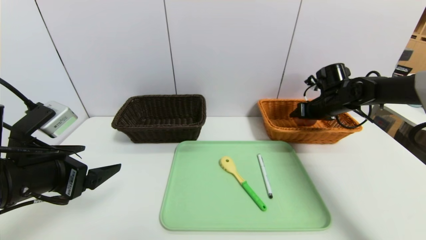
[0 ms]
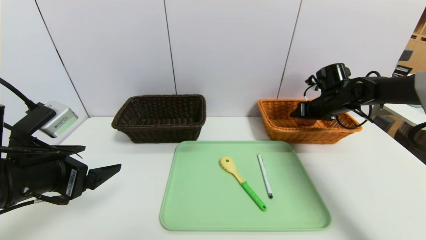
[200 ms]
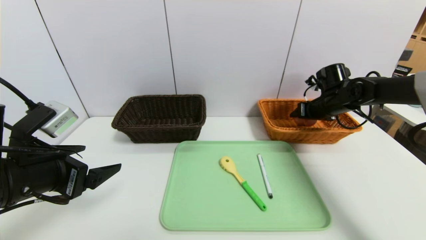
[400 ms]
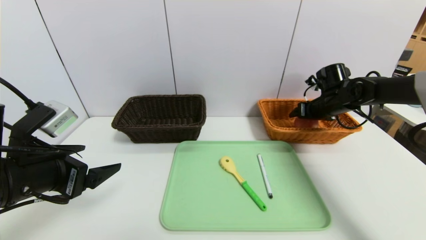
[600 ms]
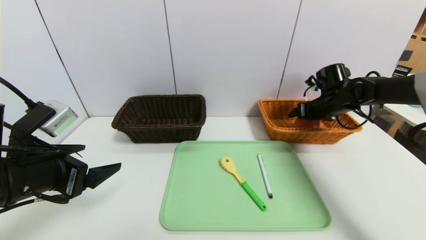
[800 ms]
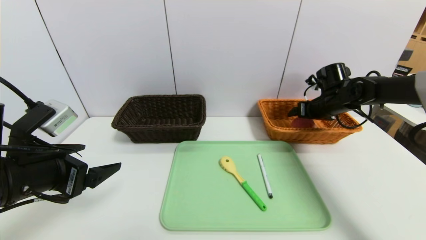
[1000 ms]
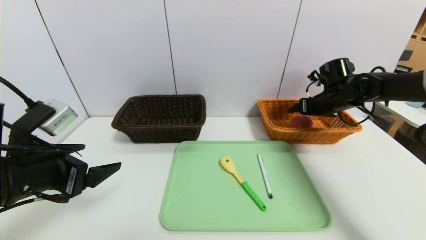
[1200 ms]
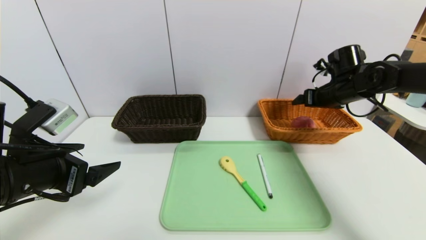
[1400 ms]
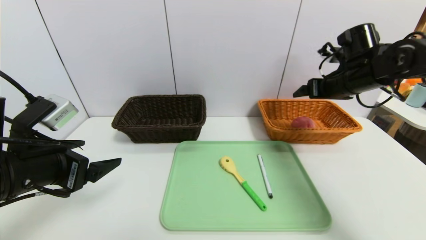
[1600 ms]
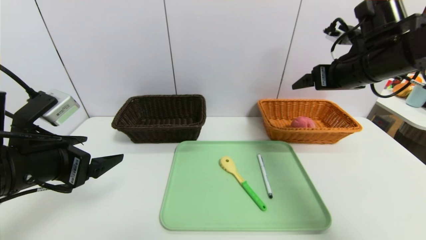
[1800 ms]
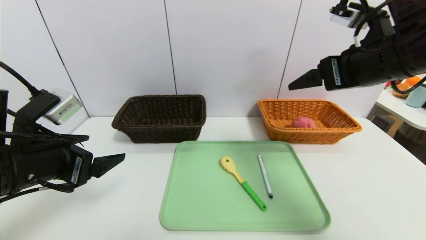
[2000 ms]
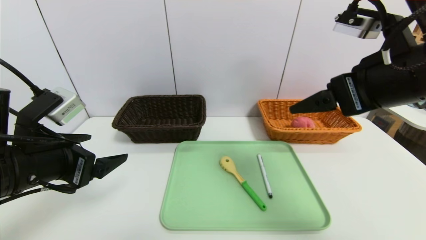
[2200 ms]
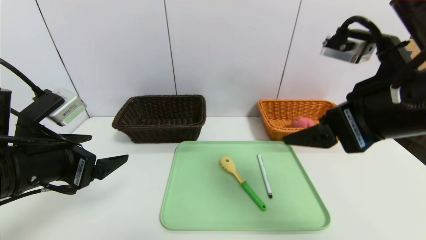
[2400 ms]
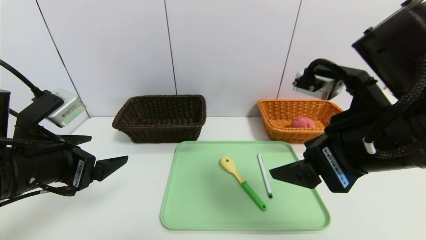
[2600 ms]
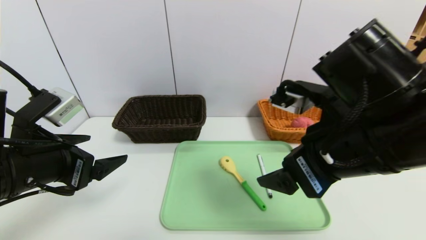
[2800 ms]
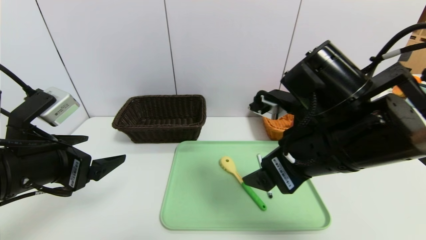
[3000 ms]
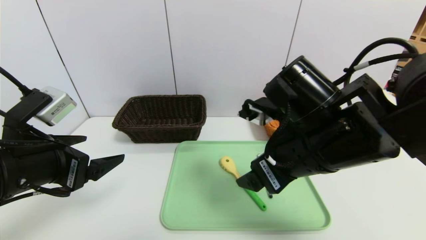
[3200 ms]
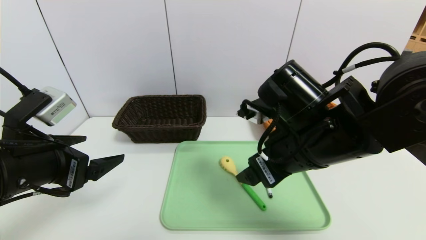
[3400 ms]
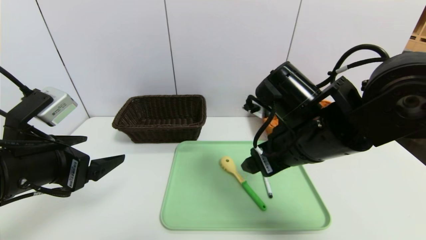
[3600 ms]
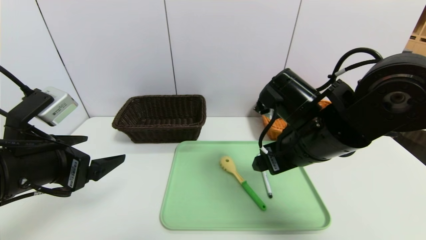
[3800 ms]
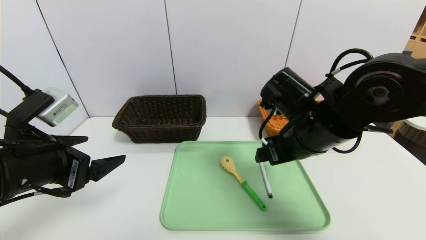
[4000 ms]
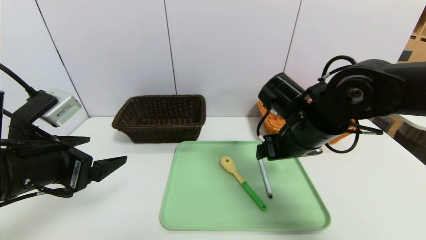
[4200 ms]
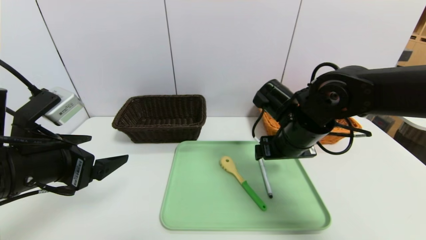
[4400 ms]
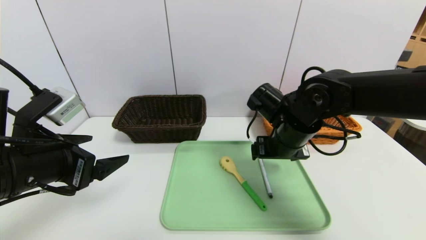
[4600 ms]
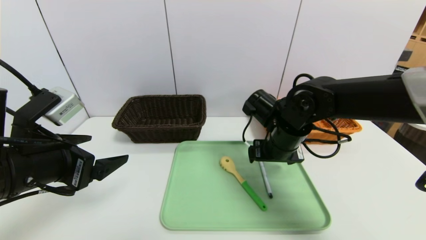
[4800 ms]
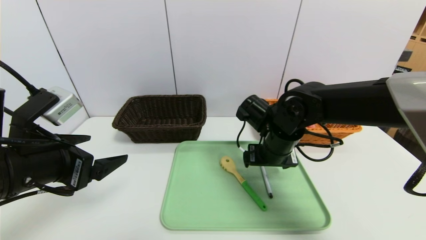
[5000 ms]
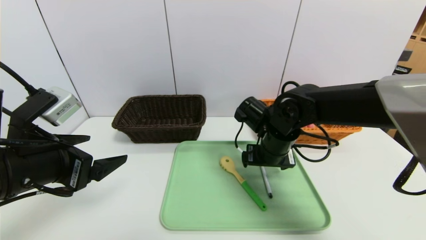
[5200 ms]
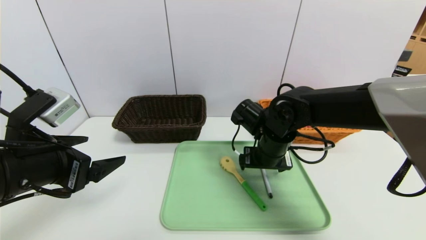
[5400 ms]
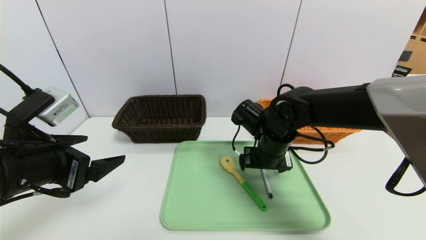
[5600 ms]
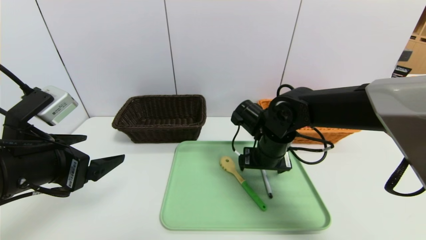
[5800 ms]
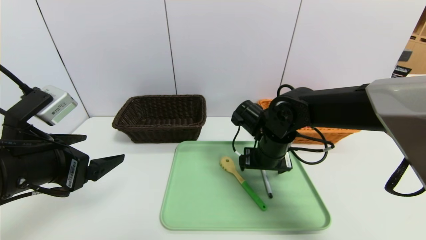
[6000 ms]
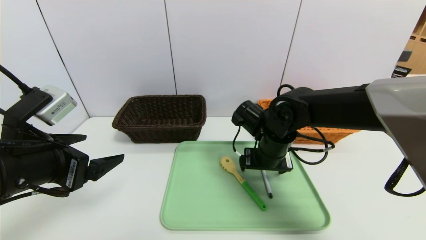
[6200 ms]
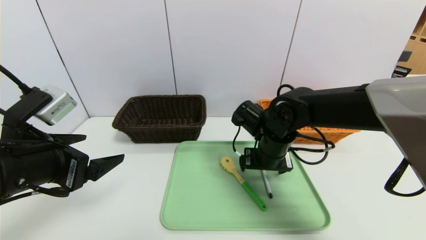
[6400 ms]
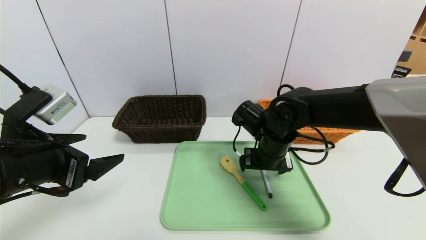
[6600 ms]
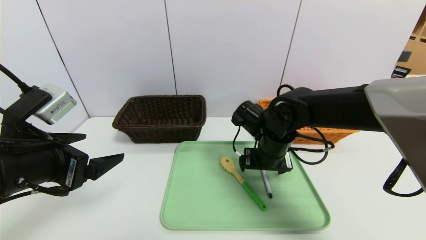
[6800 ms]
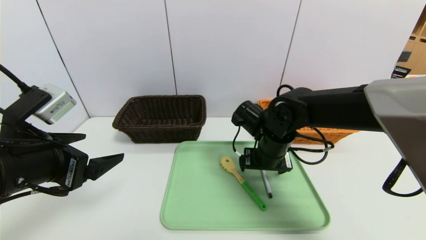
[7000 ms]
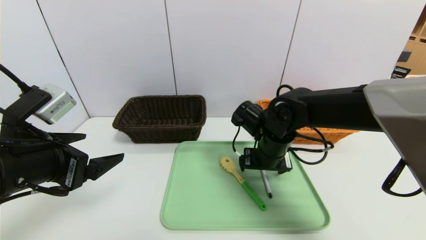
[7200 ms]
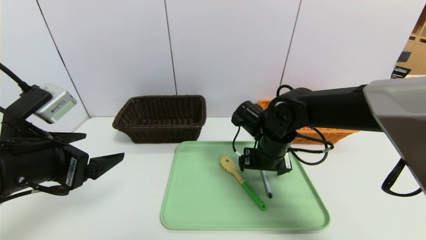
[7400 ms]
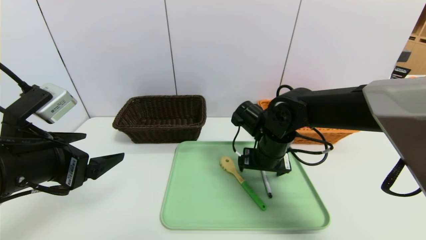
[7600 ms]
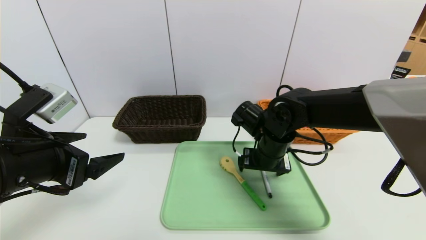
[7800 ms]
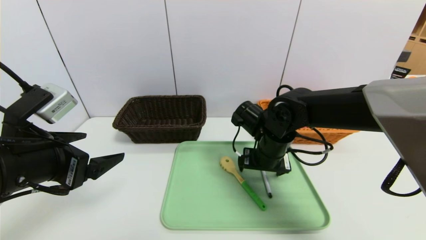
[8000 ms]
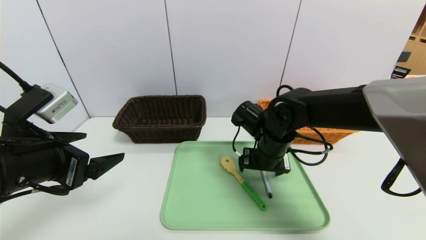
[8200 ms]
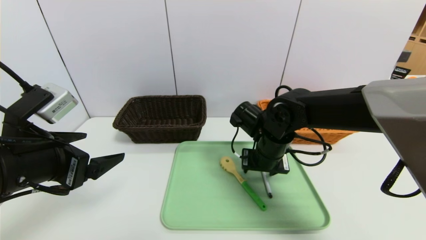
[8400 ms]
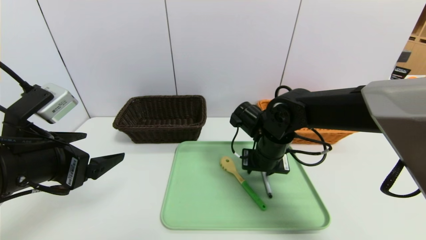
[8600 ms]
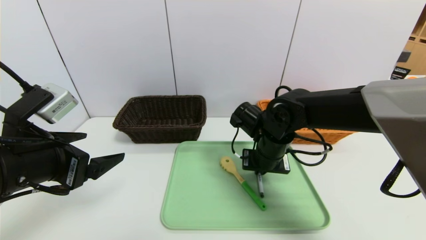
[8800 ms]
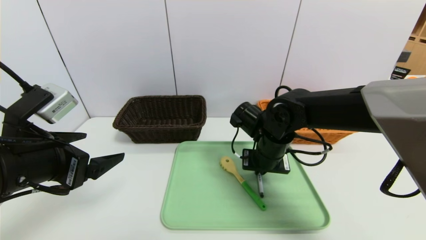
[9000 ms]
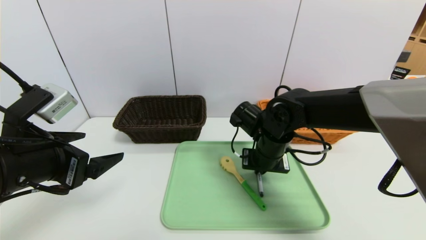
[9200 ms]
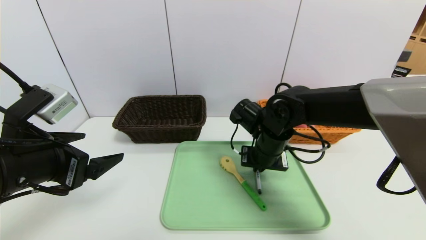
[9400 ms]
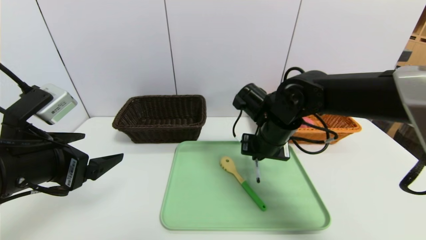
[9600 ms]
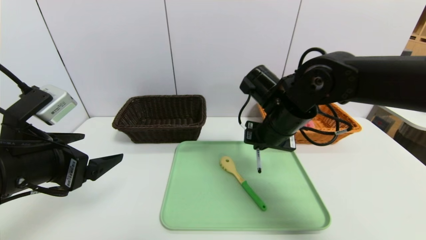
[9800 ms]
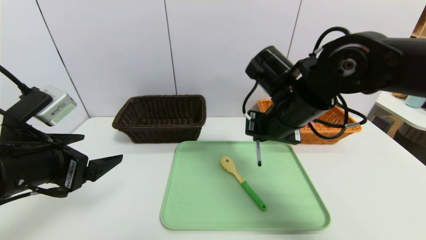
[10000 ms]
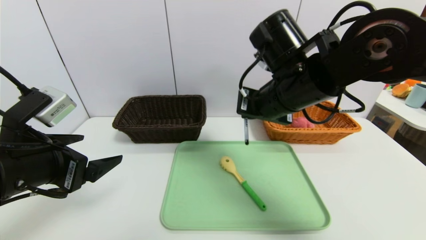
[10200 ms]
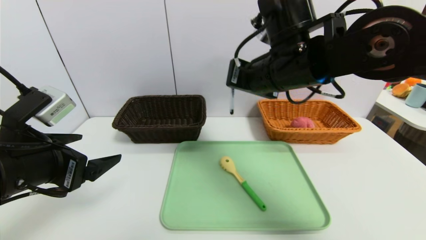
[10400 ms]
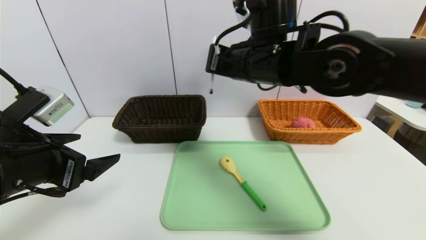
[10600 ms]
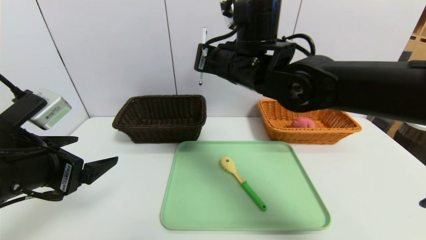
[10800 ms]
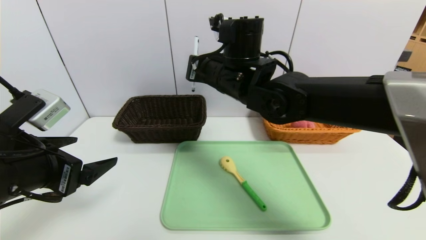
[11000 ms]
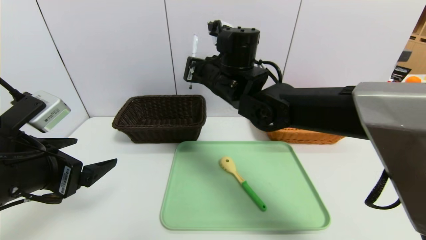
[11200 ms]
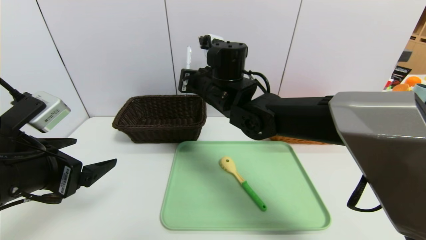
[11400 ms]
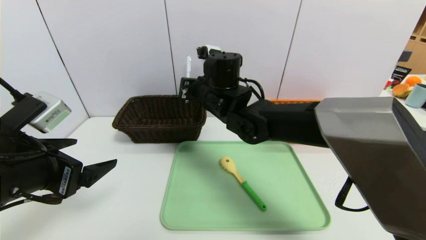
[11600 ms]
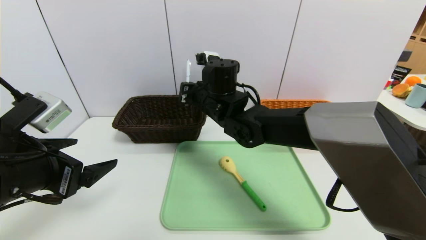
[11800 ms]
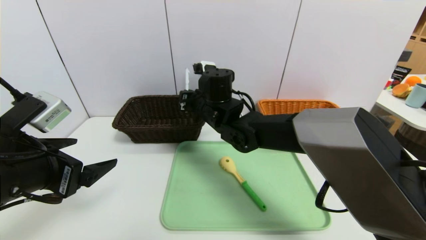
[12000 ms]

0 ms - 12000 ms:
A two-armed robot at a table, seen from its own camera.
Task of the whole recording: place the food in the right basket with the right gripper, and place the non food items in the left basket with the left gripper.
0 ms - 1600 ms: The right gripper travels upward and backward by some 10 cm.
1600 ms - 3000 ms: The right gripper is displaced backward and to the left by roughly 25 cm.
3000 ms - 4400 ms: The right gripper goes some 10 cm forward and downward.
4400 ms - 6000 ms: The right gripper shifts by some 5 cm.
6000 ms - 7600 ms: Both grippers stay put.
7600 ms - 9000 ms: The right gripper closes its fingers.
9000 ms - 10400 ms: The right gripper is displaced upward by some 20 cm.
10400 ms - 12000 ms: The right gripper is displaced downward, to the left and forward by approximately 20 cm.

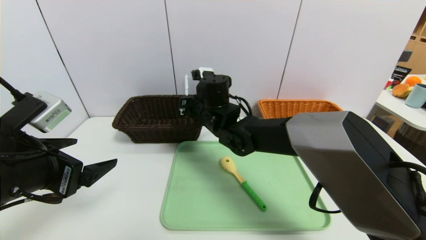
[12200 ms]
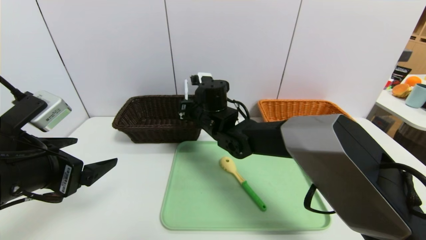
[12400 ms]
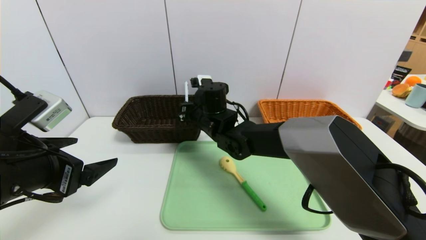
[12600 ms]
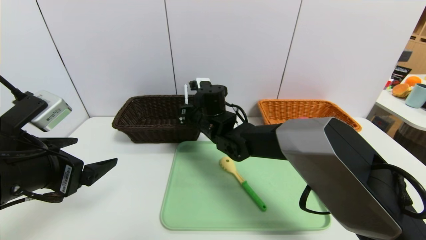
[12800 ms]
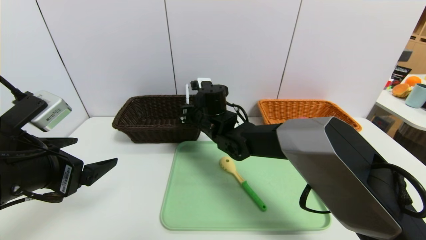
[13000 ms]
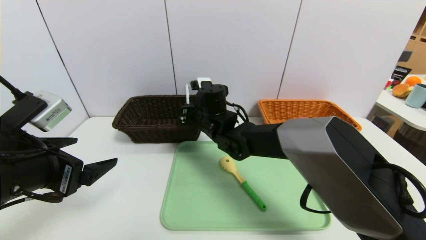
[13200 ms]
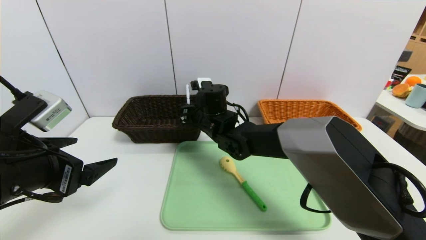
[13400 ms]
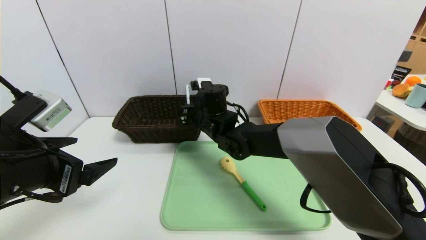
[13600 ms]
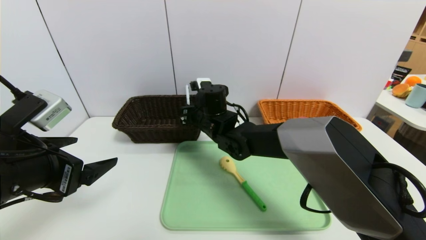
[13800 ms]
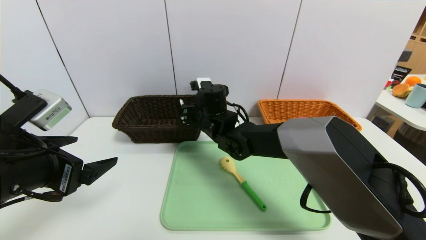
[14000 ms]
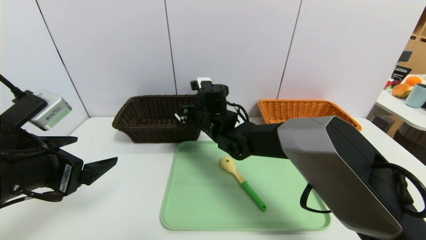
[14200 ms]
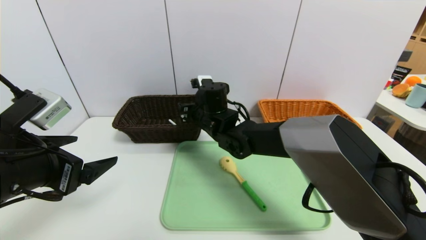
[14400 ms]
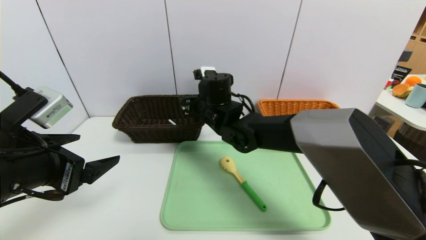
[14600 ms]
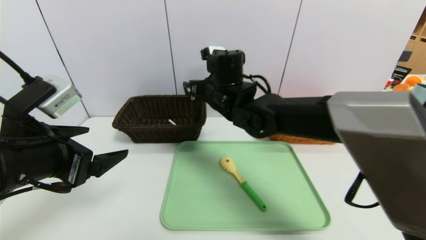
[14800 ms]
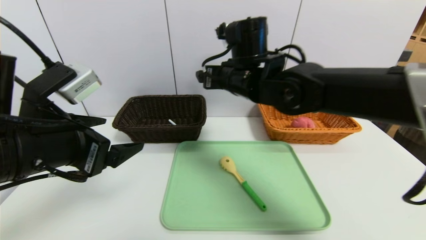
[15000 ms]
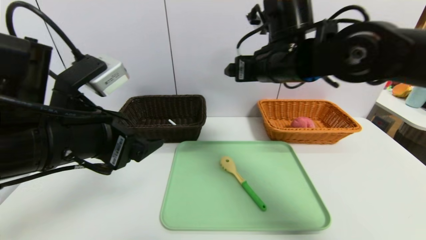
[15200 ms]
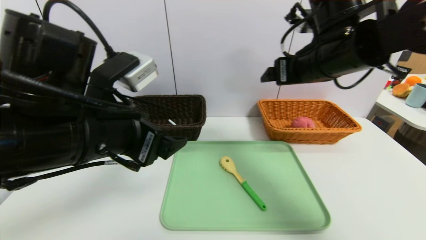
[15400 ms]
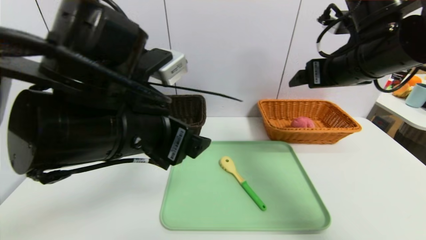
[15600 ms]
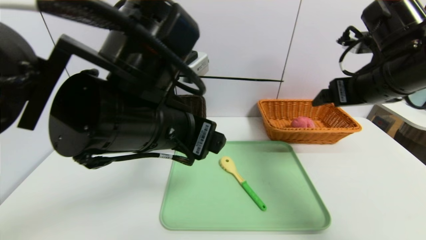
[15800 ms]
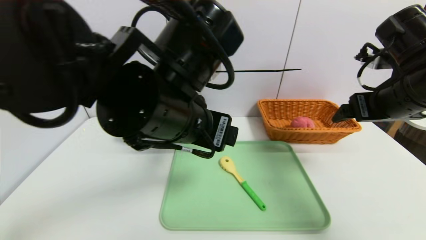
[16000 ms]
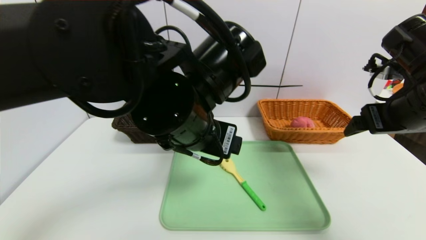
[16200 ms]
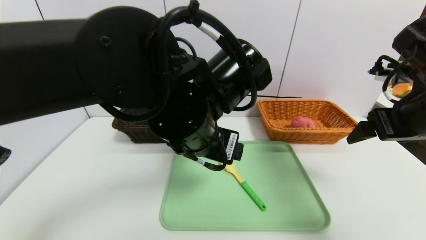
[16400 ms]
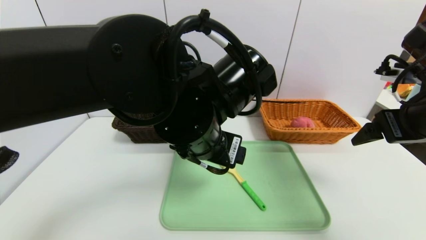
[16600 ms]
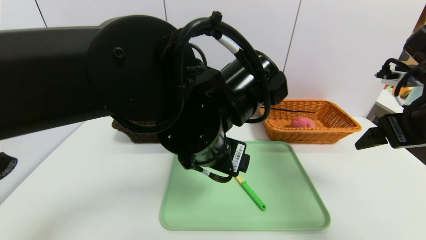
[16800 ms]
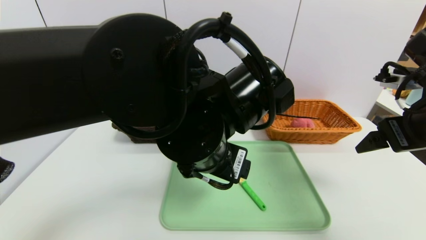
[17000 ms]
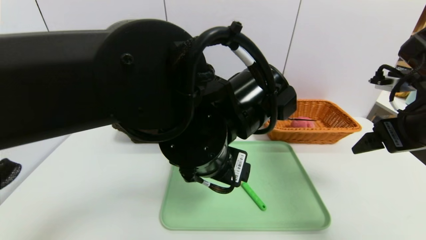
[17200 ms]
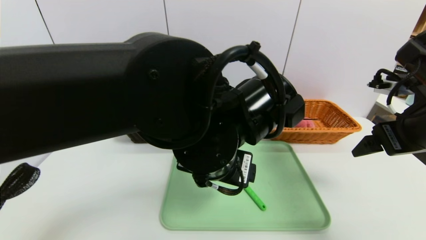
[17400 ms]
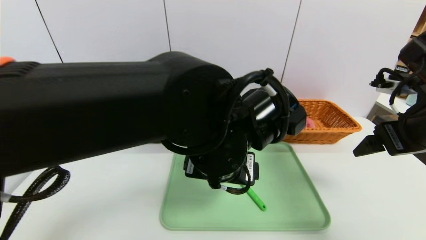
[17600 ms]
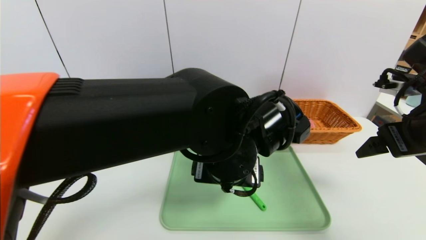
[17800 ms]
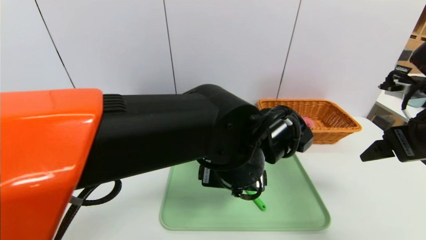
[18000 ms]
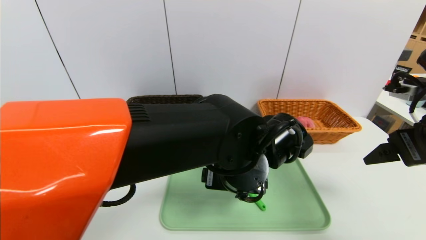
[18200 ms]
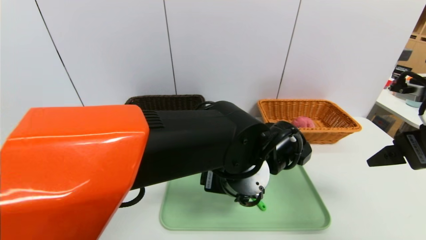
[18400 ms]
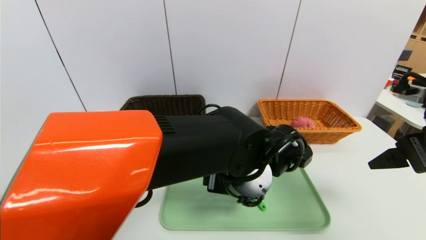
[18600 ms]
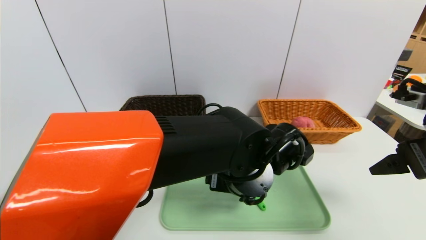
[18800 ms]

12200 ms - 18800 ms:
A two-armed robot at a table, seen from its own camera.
Task of the whole recording: place the food in the right basket with the right gripper, and place the non food items in the left basket with the left gripper.
12200 ms - 13800 ms: The grippers stay close to where they were, moving slightly.
13800 ms - 15400 ms: The right gripper heads to the right, upward and backward, covering approximately 25 cm, and opens its fingers. The left gripper travels to the right by roughly 10 cm.
15400 ms - 17200 ms: The left gripper heads to the right, covering approximately 15 cm. The right gripper is displaced to the right and backward by roughly 15 cm.
17200 ms - 18800 ms: The left gripper shifts roughly 10 cm downward and to the right.
